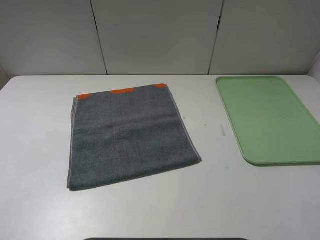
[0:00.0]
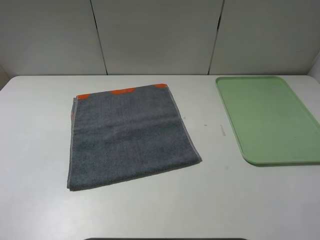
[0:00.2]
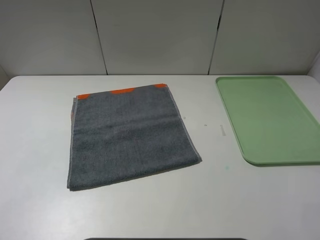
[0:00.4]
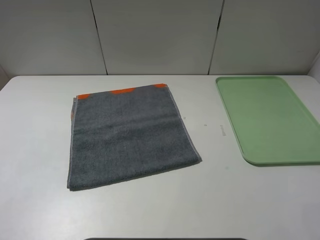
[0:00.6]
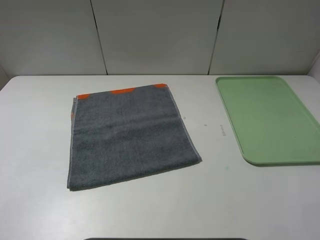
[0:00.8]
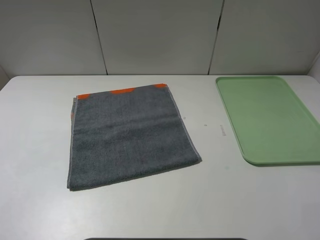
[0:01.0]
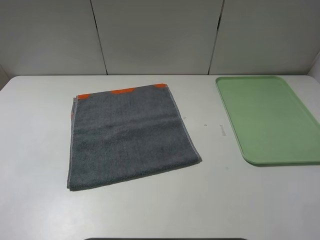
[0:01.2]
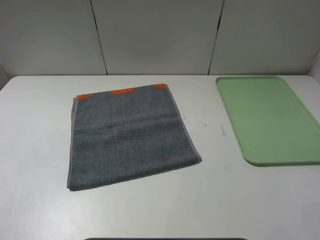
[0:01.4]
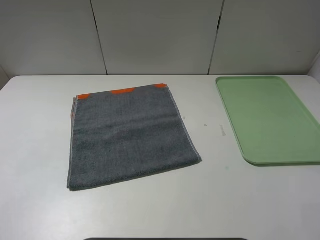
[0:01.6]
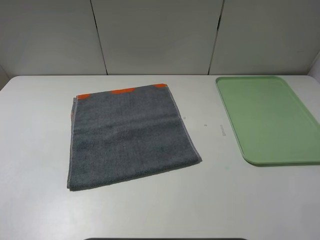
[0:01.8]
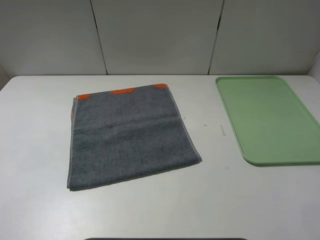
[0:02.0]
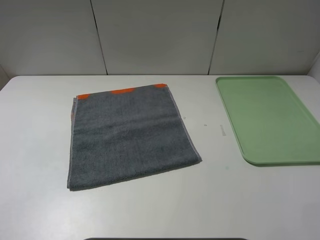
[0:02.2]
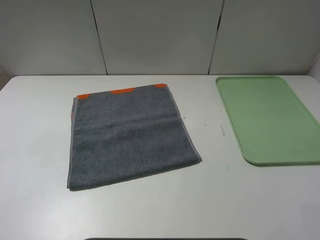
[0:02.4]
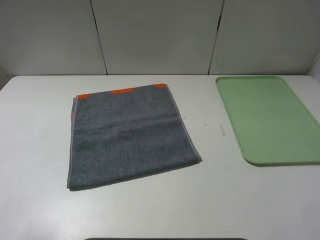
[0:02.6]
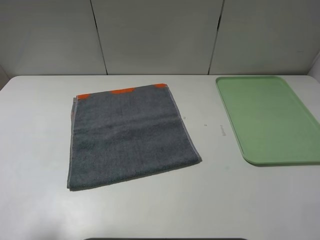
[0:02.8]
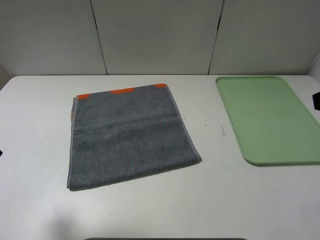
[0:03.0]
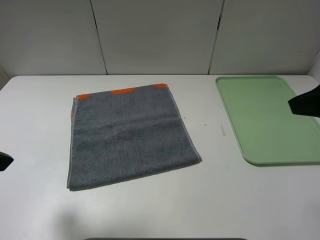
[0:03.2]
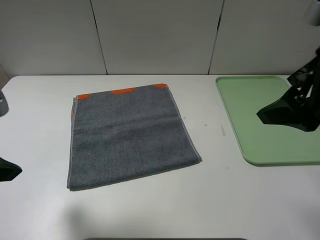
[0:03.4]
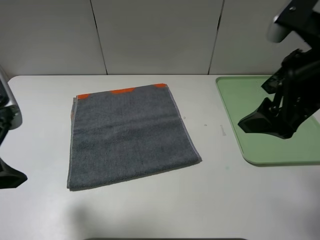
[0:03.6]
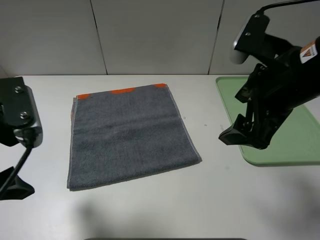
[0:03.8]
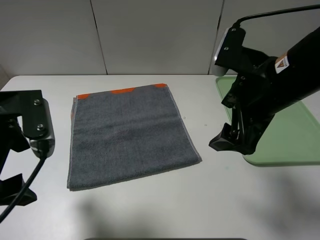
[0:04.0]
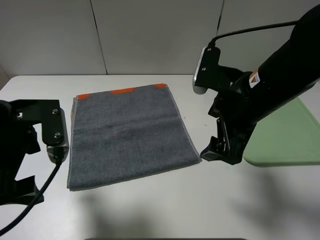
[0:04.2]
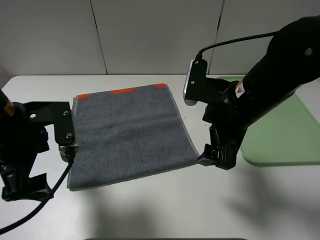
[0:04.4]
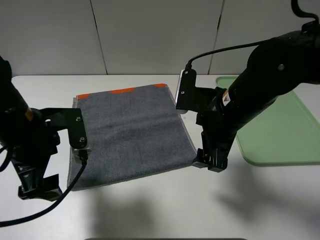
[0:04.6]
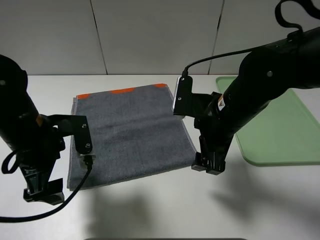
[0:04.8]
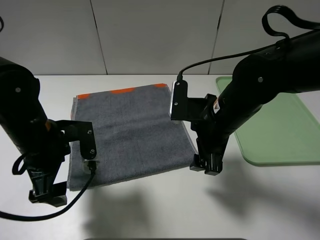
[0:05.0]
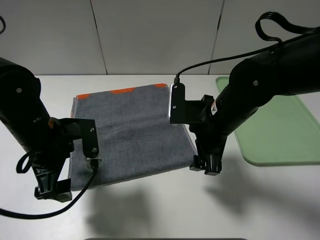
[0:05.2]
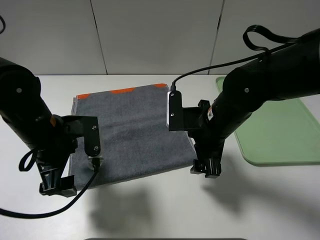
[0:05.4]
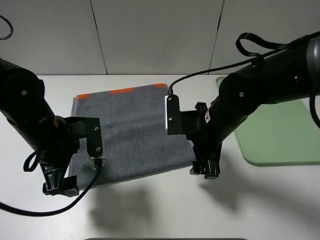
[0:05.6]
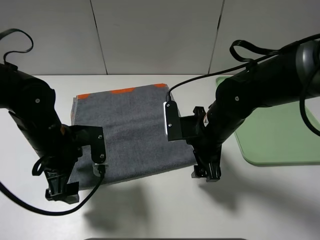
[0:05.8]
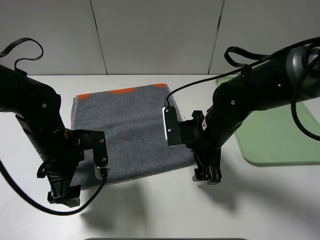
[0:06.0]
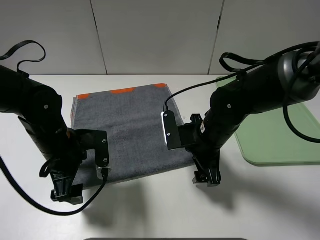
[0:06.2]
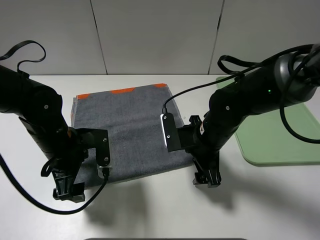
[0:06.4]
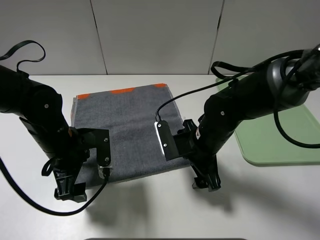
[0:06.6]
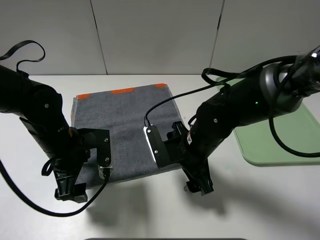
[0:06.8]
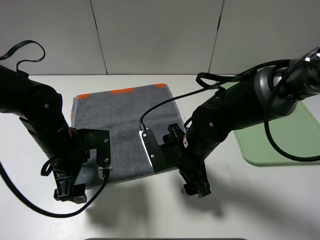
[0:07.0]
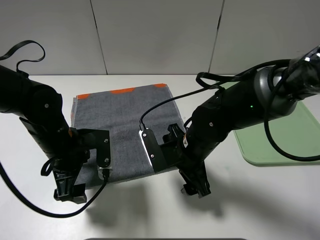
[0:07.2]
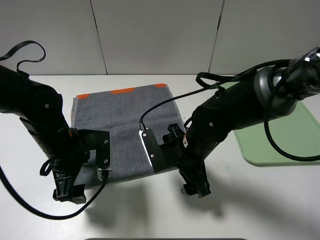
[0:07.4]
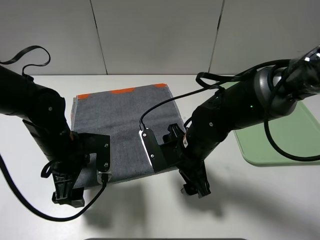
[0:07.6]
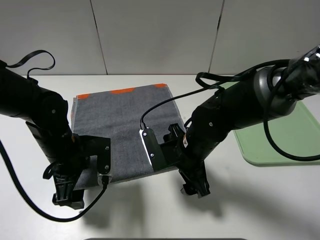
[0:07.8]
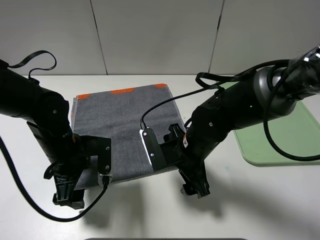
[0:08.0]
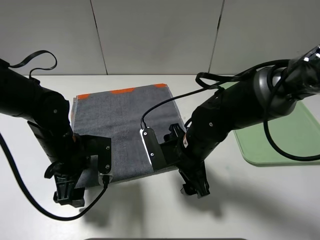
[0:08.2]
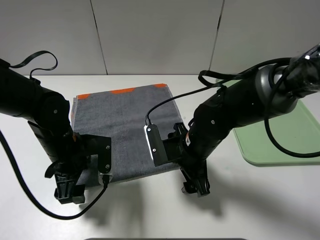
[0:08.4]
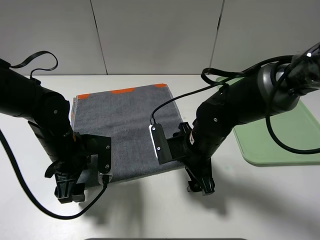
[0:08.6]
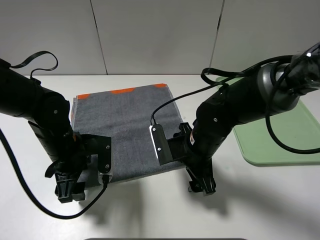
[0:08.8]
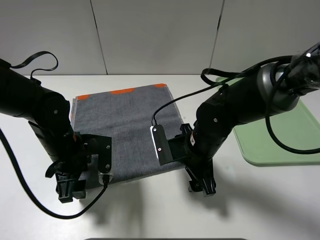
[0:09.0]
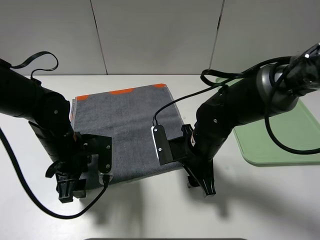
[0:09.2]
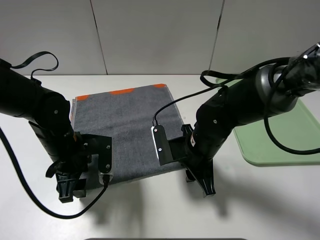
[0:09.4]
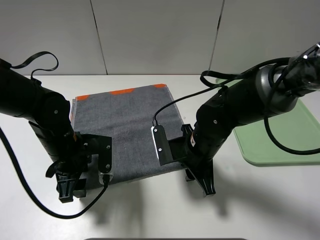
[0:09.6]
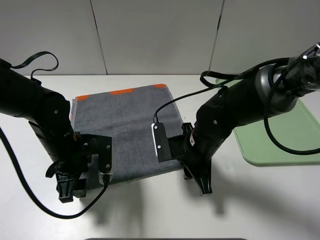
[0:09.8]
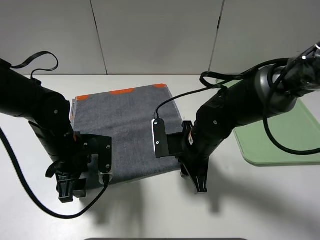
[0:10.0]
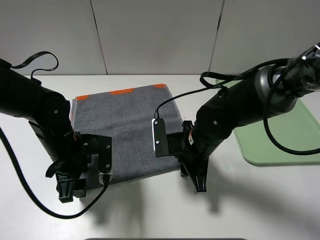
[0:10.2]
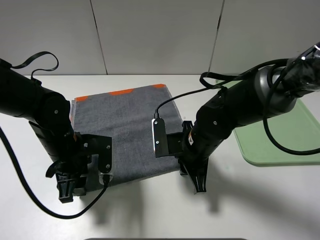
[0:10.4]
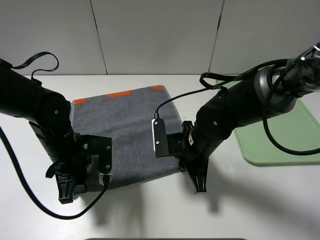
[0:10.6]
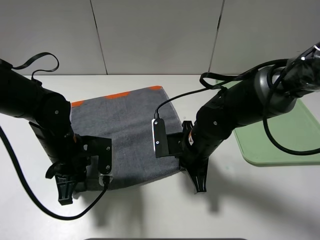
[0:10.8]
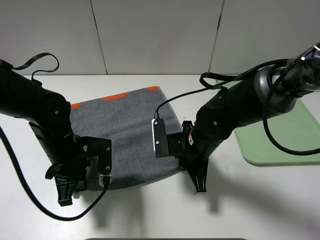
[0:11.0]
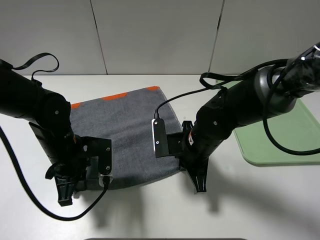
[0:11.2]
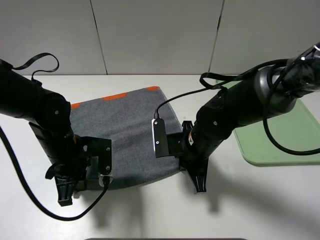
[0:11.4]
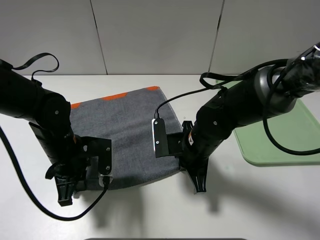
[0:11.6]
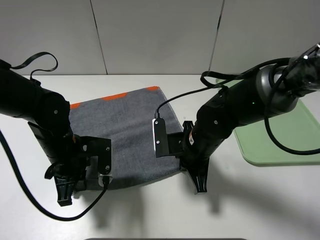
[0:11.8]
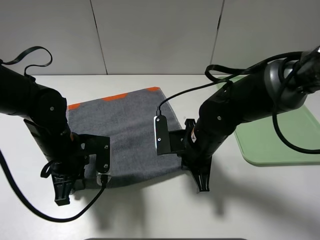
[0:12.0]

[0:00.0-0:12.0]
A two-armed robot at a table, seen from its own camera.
0:00.0 to 0:01.6: Both grippers stay about where they are.
0:01.6 to 0:03.0: The left gripper shifts some 10 cm forward.
0:03.0 to 0:04.4: The right gripper goes approximately 20 cm to the left, downward and forward; the left gripper goes roughly 15 cm downward, to the right and forward.
0:04.4 to 0:06.0: The grippers both shift downward by roughly 10 cm.
0:07.6 to 0:09.0: The grippers make only small movements.
0:09.0 to 0:10.4: The right gripper closes.
0:10.4 to 0:12.0: The left gripper closes up.

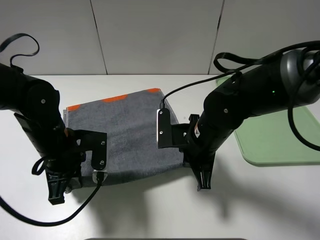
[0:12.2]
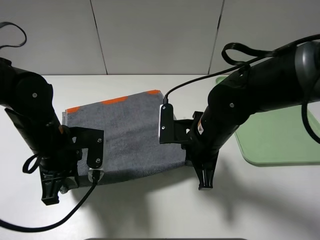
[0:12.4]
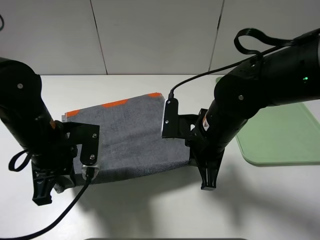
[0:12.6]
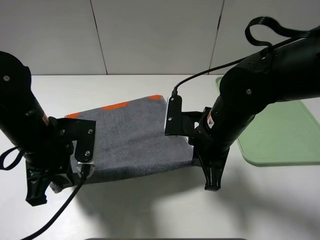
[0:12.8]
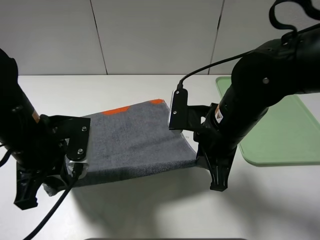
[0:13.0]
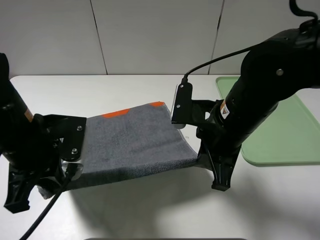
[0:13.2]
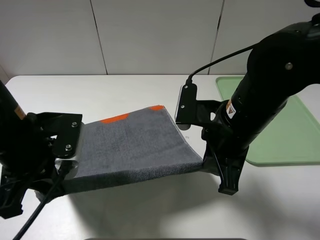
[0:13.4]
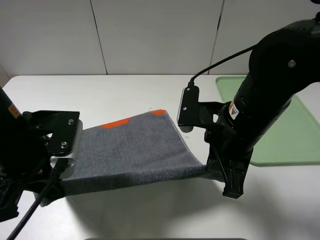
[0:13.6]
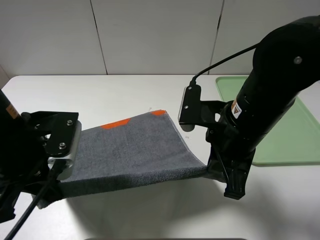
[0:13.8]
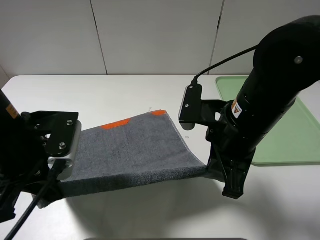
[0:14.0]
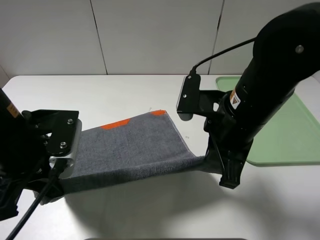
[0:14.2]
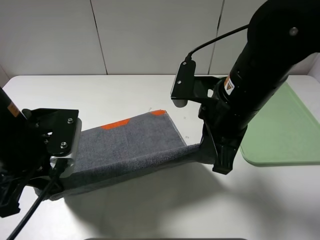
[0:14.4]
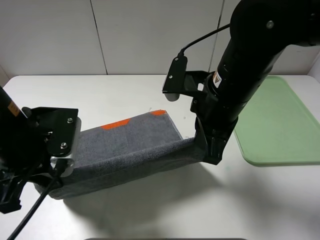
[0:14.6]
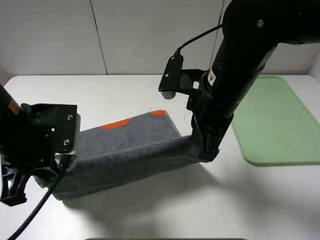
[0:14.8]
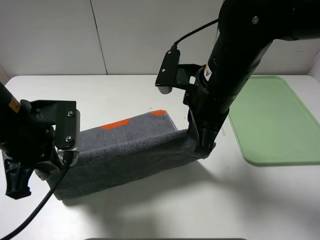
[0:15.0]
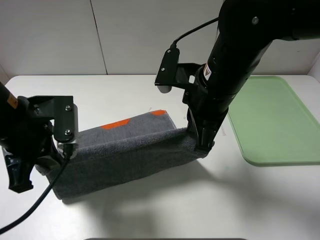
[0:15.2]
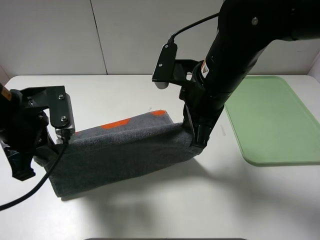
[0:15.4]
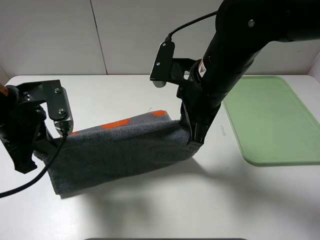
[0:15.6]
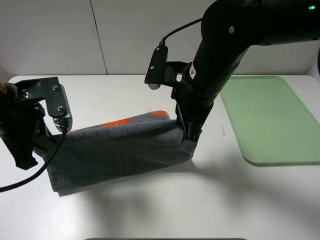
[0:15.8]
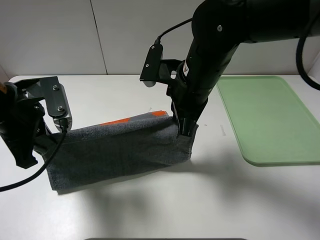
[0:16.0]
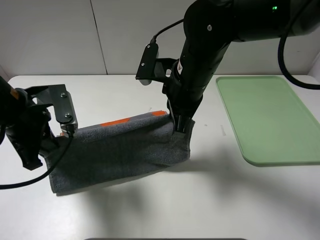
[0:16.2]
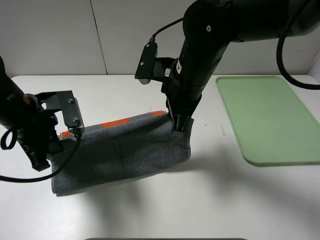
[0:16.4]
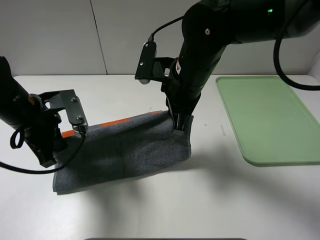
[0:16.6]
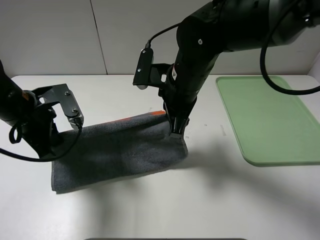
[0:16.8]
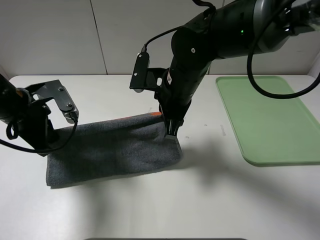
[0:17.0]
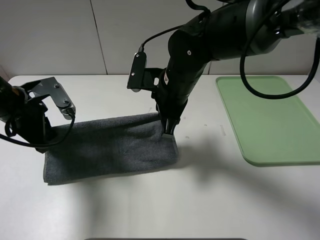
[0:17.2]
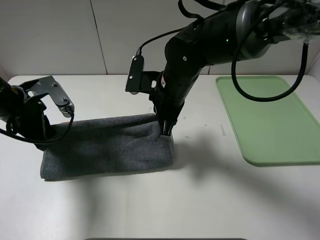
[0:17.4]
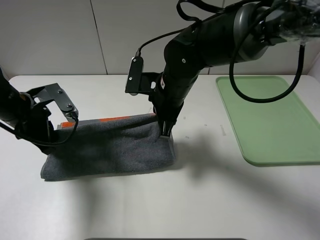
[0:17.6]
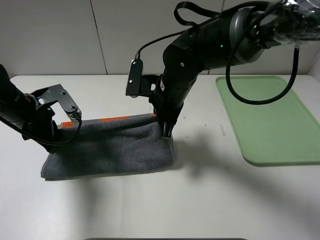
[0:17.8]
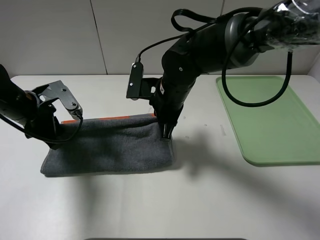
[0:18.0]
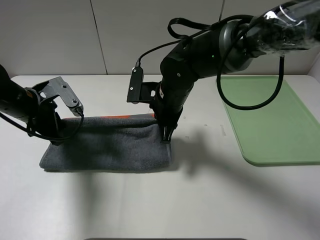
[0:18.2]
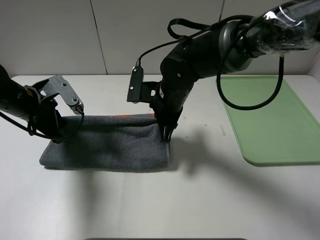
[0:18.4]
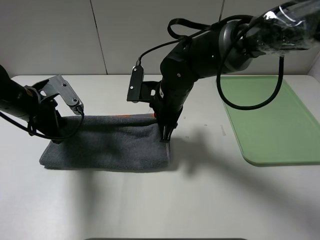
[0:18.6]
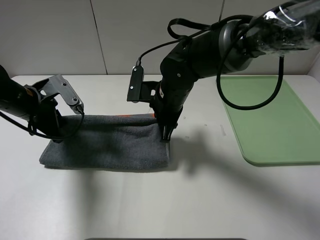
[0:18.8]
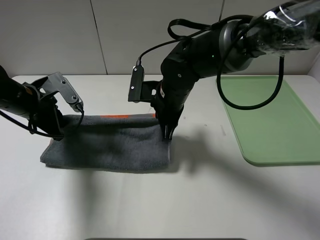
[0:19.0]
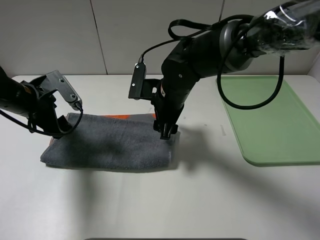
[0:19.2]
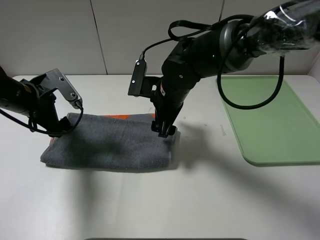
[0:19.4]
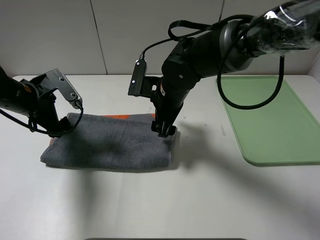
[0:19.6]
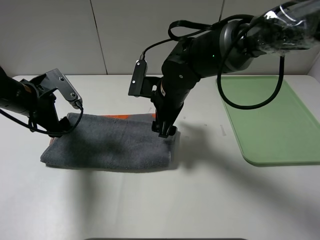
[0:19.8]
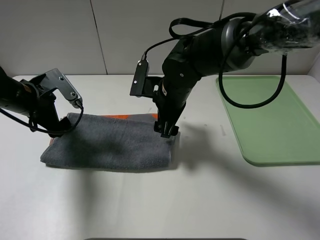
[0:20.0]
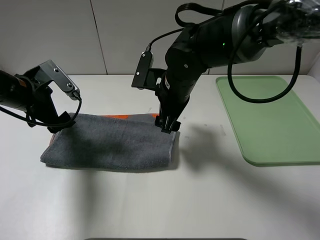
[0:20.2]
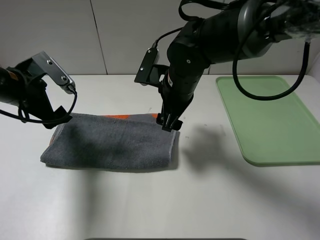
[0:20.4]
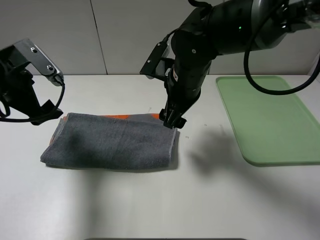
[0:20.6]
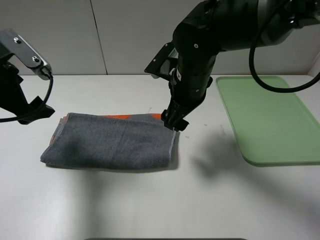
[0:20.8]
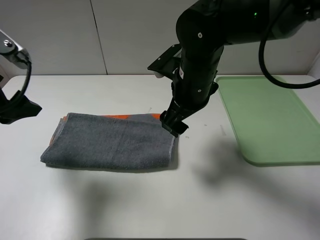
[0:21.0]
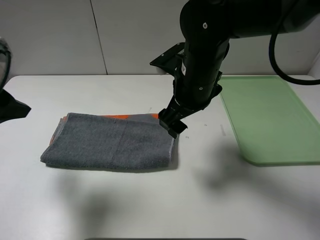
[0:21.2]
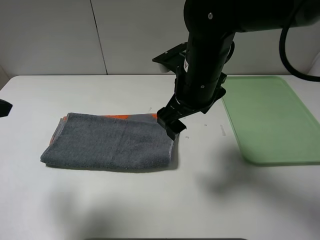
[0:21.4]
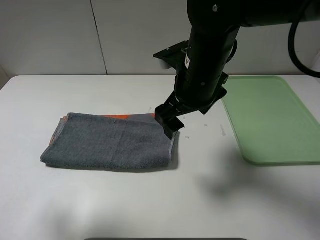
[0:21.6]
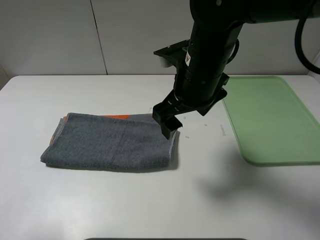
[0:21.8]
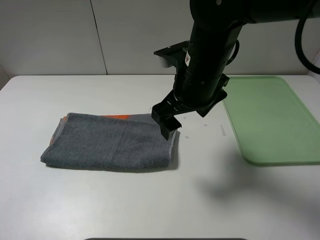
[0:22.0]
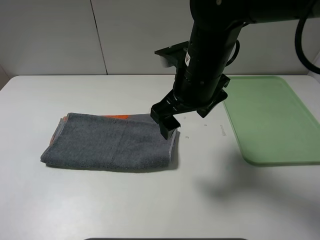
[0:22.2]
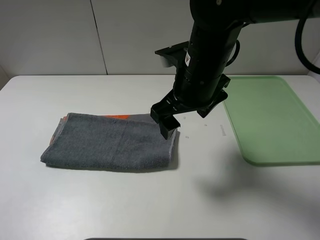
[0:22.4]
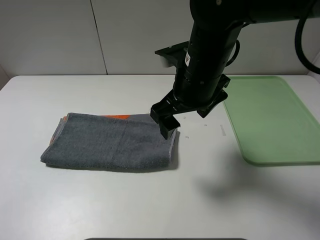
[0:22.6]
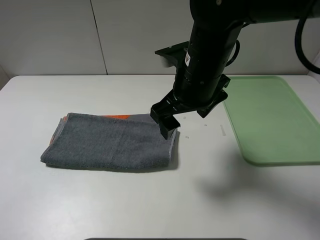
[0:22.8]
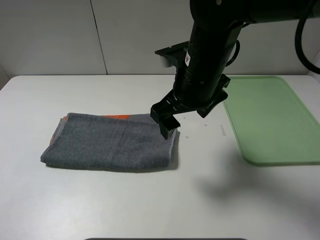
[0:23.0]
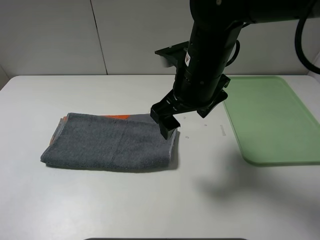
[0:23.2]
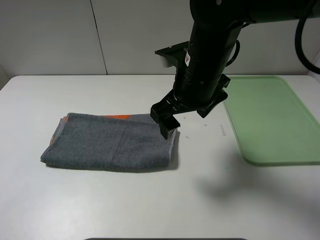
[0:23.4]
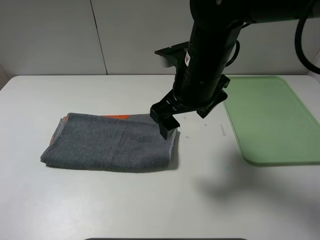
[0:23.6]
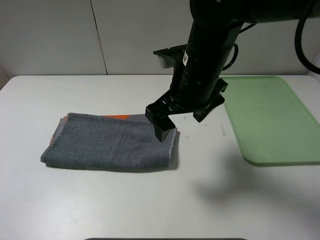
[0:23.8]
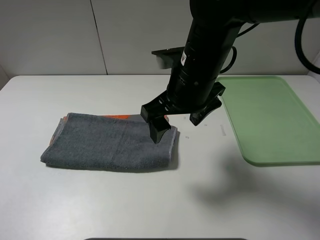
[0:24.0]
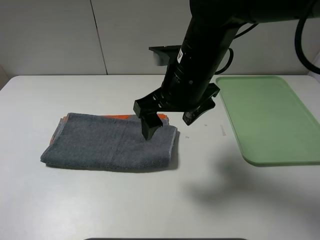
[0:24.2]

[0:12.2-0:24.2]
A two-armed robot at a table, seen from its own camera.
Step, 0:12.2 to 0:19.4: Fold the grey towel upwards.
0:12.2 to 0:13.8: The left gripper moves upward and backward, approximately 10 cm, while the right gripper shifts about 10 cm upward.
0:13.8 to 0:15.2: The right gripper ends up some 5 cm from where it was.
0:15.2 to 0:16.6: The right gripper shifts by some 5 cm. Meanwhile the left gripper travels forward by about 5 cm.
0:16.6 to 0:18.2: The right gripper shifts roughly 5 cm downward. Meanwhile the left gripper changes place by roughly 5 cm.
0:18.2 to 0:19.8: The right gripper opens its fingers; the left gripper opens its fingers.
0:19.8 to 0:21.2: The left gripper heads upward and backward, covering about 20 cm, while the right gripper travels upward by about 5 cm.
0:21.2 to 0:22.6: The left gripper shifts about 20 cm backward.
0:22.6 to 0:24.2: The grippers make only small movements.
